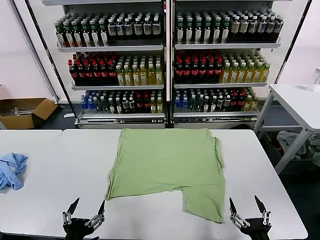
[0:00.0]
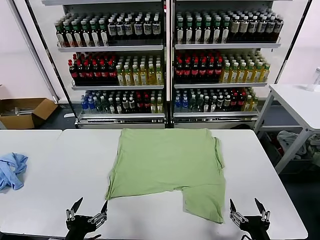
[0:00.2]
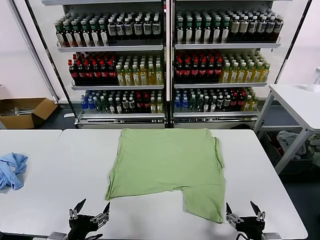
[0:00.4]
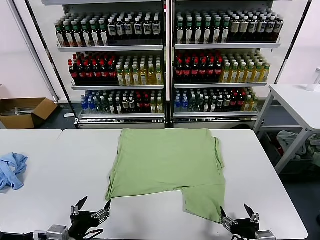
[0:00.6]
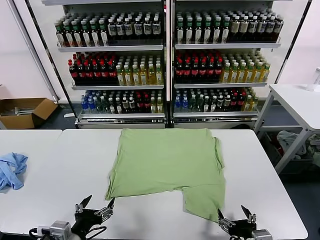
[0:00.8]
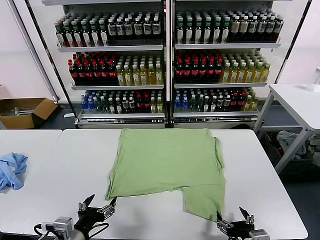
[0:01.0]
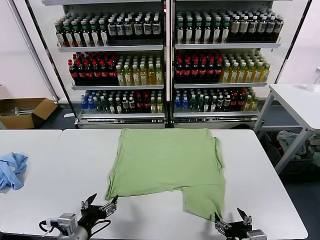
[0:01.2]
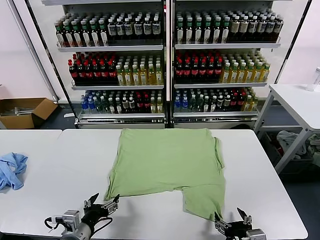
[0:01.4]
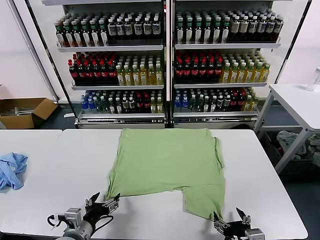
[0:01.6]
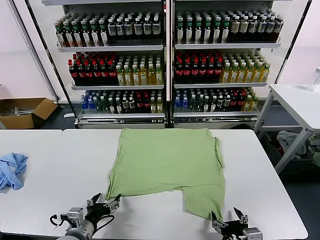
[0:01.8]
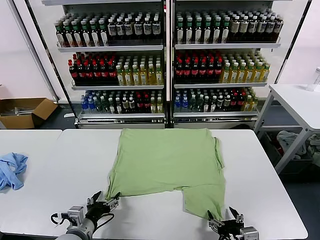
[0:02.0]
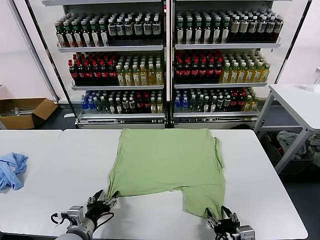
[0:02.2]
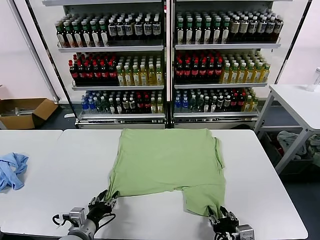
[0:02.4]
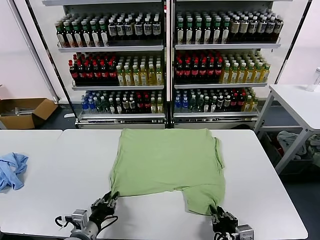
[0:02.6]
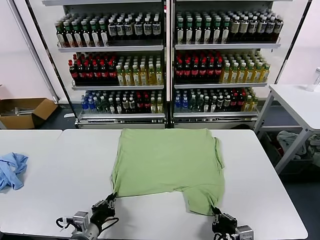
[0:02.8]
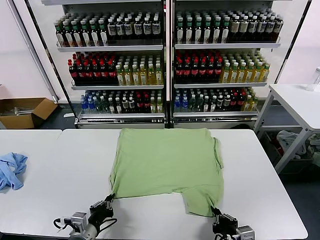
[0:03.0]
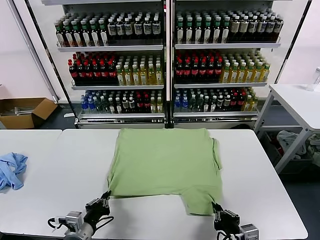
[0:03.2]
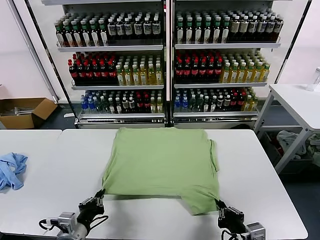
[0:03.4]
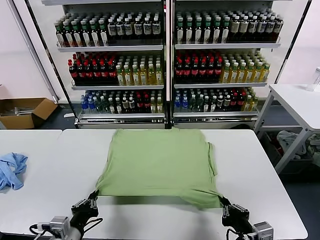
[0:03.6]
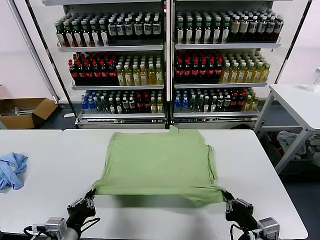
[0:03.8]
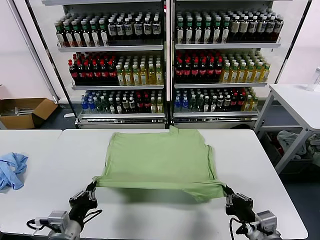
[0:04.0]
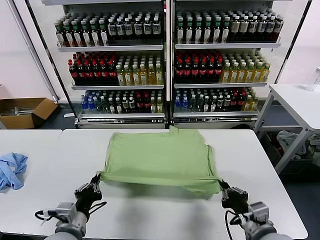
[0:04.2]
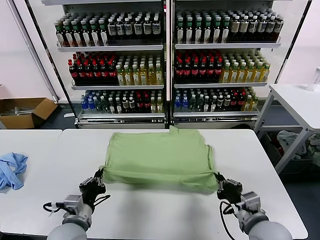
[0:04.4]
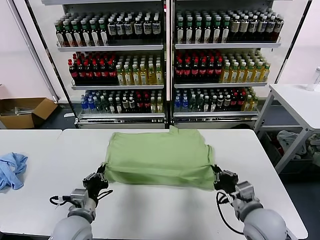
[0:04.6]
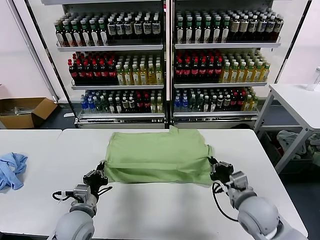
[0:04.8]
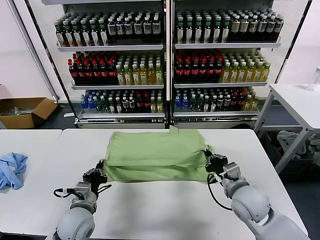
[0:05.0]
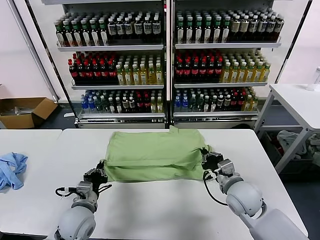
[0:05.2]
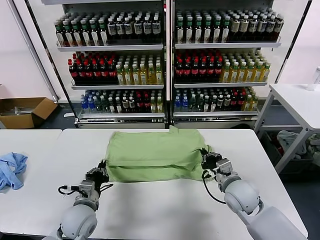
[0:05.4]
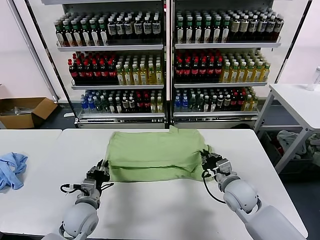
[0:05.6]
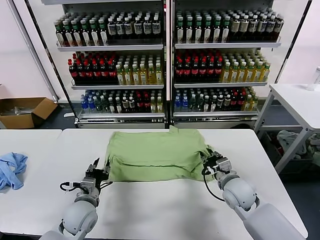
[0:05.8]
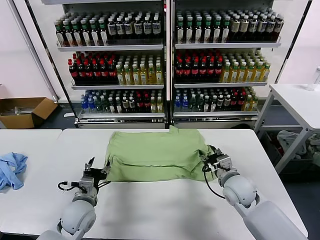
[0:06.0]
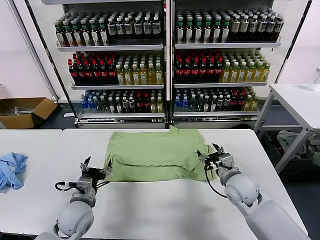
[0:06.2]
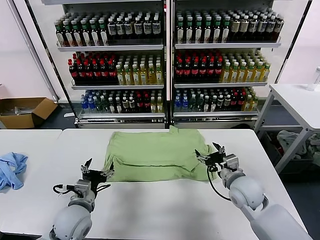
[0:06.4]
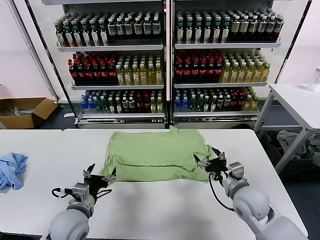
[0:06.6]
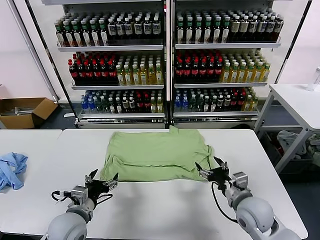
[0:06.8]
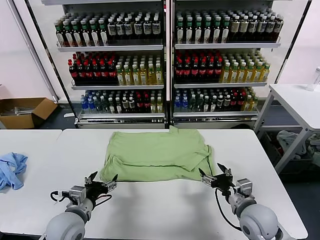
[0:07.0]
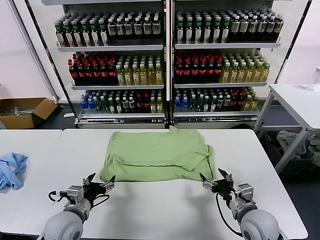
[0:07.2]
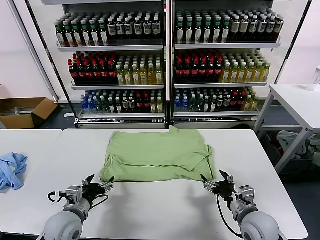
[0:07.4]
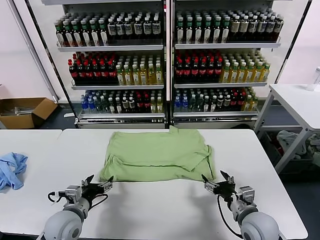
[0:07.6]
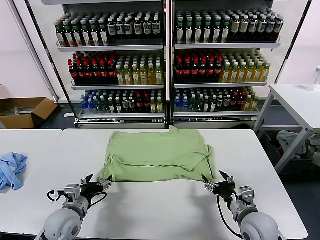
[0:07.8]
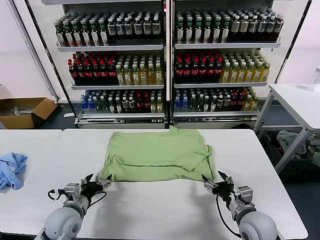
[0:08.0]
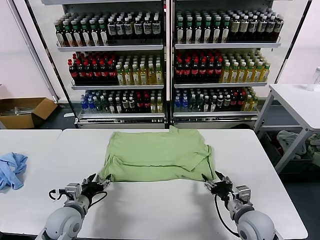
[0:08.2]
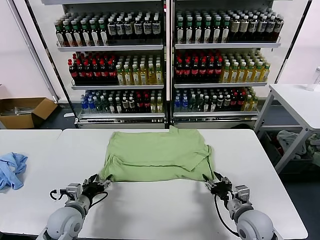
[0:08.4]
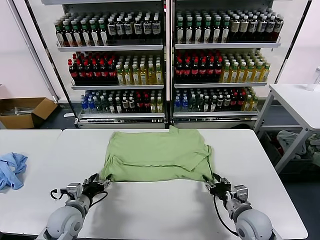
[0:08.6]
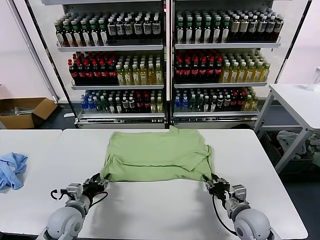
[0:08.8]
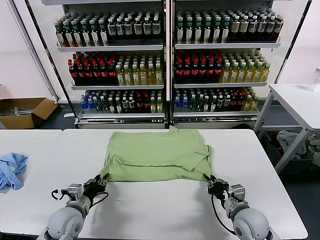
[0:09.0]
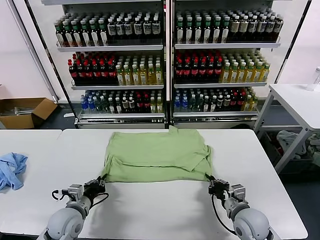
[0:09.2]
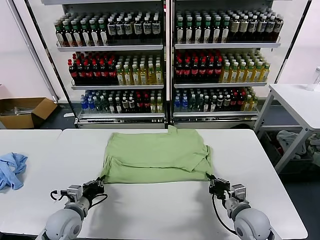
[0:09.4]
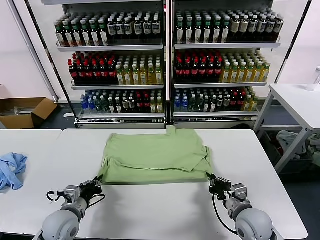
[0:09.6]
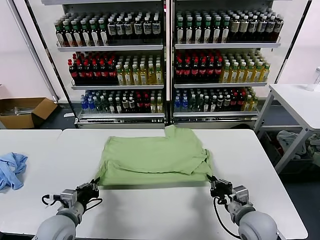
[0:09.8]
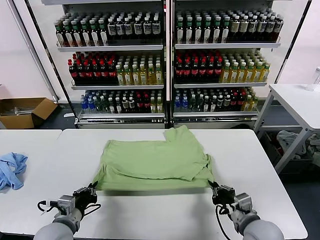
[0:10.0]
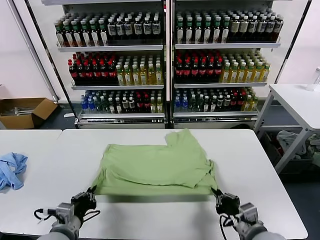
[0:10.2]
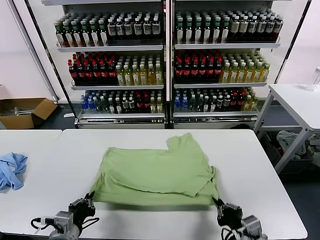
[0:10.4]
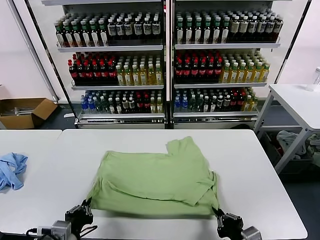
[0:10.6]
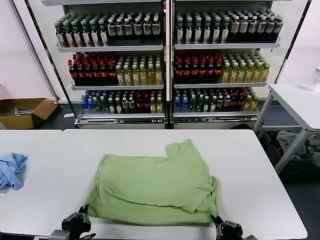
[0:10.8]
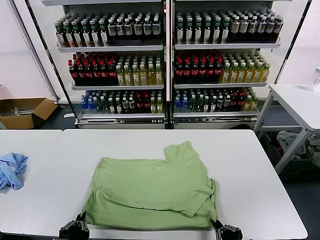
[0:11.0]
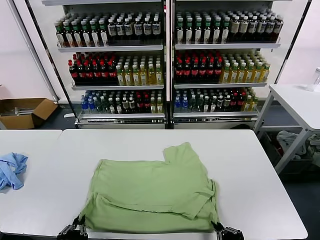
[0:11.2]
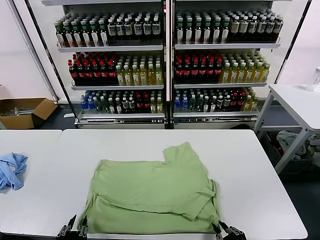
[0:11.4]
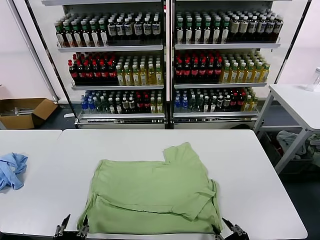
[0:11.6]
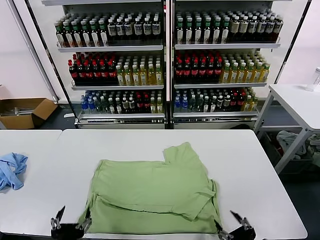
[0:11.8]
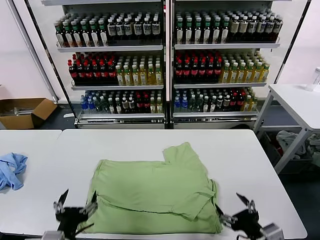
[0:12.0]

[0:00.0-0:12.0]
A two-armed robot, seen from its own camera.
Task of the whole recording: fold and organize the clothes.
Step, 0.0 to 2.8 s: use both grippers simultaneously to clamp the lower edge of the clothing fabric.
Step, 3.0 to 6.0 s: use both grippers to drag the lower edge of the fabric forward and fold it over the upper edge.
Step, 6.2 to 11.4 s: Drag the clothes downward with both gripper.
1.6 to 3.0 s: The right gripper closes, while the left gripper closes.
3.0 to 4.4 s: The left gripper goes roughly 5 cm upward, while the right gripper goes approximately 10 cm forward and upward.
4.4 to 6.0 s: The left gripper shifts roughly 10 cm forward, and opens, while the right gripper moves forward, some 15 cm, and opens up.
6.0 to 7.6 s: The right gripper moves backward, approximately 10 cm.
7.6 to 9.0 s: The right gripper closes, while the left gripper closes up.
9.0 to 10.4 s: The two grippers go about 15 cm backward and upward. The left gripper closes.
10.4 to 12.0 s: The left gripper is displaced backward by about 5 cm, and opens its fingers, while the right gripper ends up approximately 5 cm from where it was, and opens up.

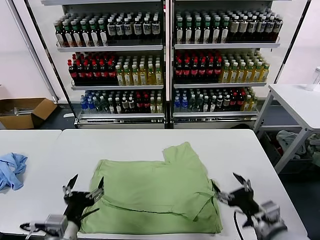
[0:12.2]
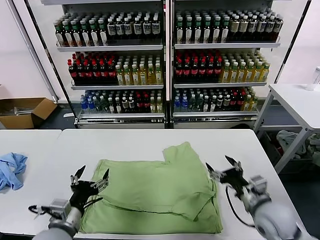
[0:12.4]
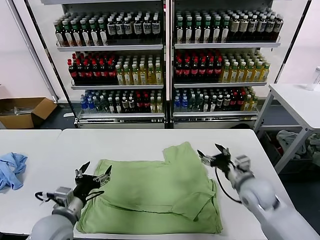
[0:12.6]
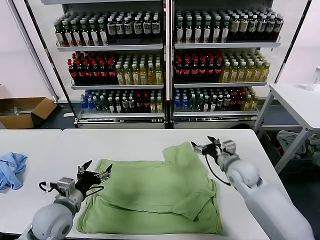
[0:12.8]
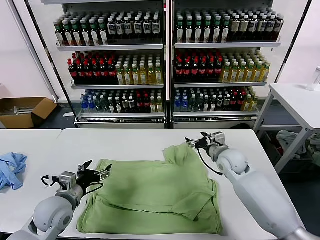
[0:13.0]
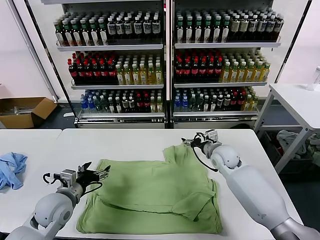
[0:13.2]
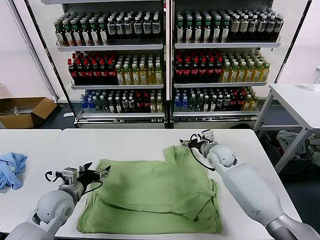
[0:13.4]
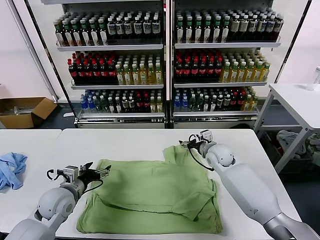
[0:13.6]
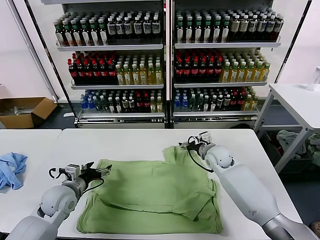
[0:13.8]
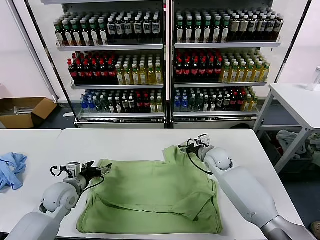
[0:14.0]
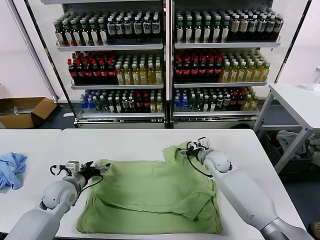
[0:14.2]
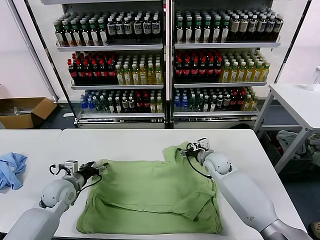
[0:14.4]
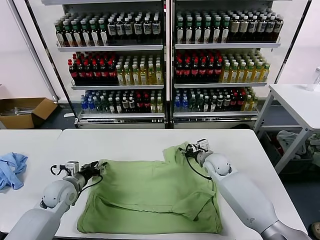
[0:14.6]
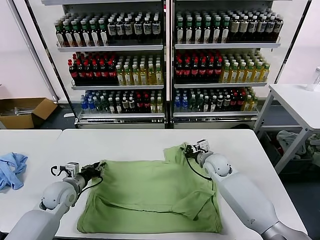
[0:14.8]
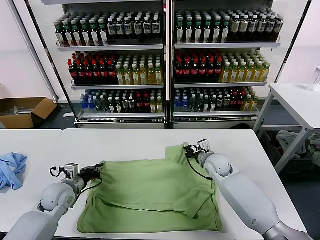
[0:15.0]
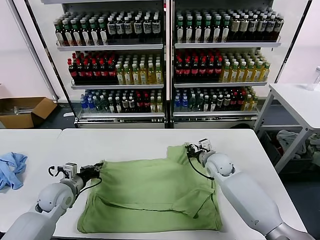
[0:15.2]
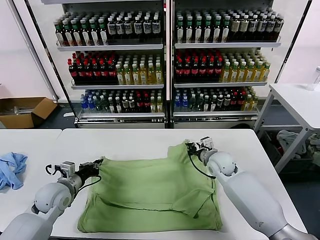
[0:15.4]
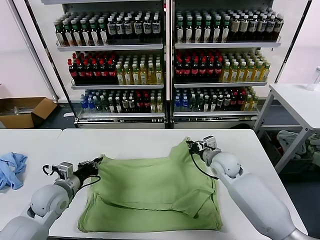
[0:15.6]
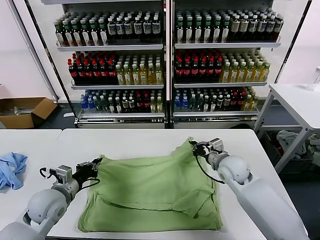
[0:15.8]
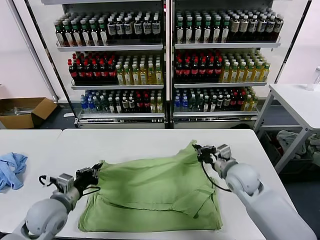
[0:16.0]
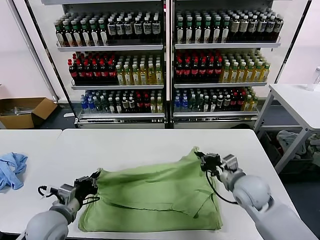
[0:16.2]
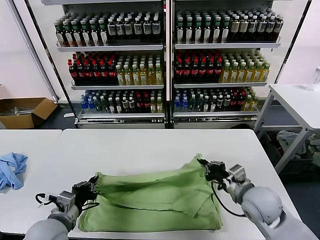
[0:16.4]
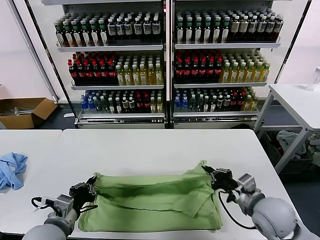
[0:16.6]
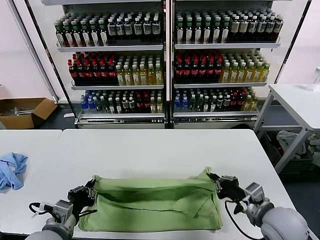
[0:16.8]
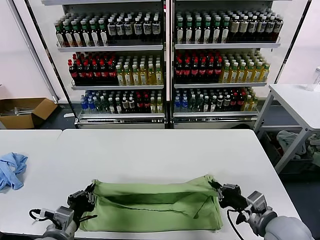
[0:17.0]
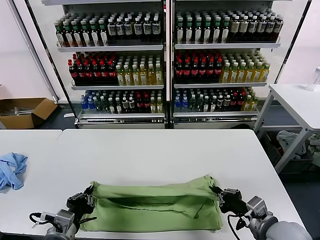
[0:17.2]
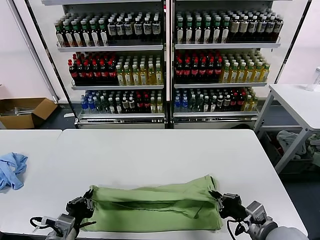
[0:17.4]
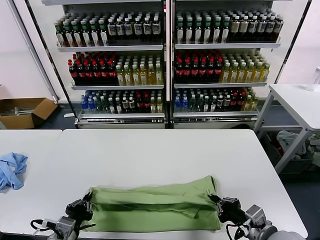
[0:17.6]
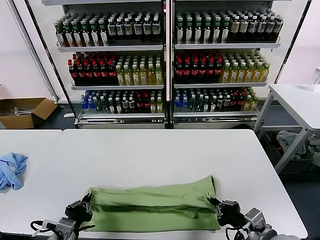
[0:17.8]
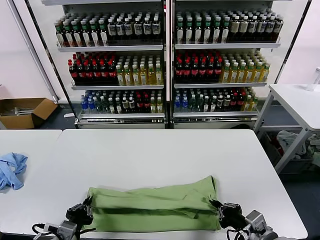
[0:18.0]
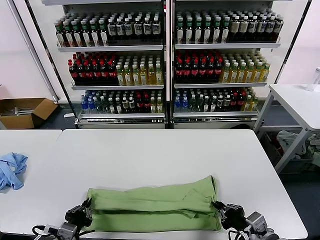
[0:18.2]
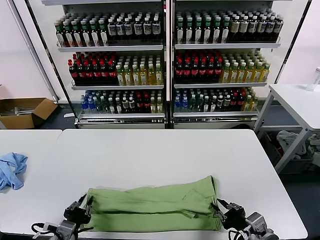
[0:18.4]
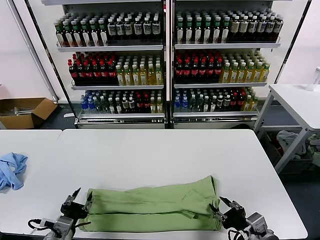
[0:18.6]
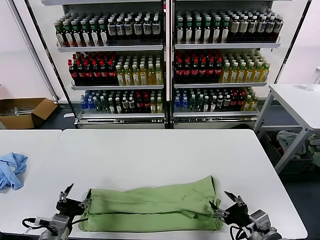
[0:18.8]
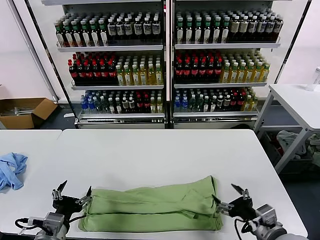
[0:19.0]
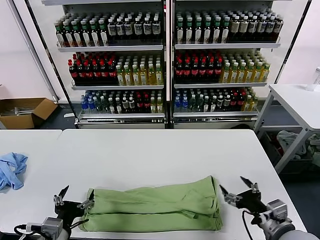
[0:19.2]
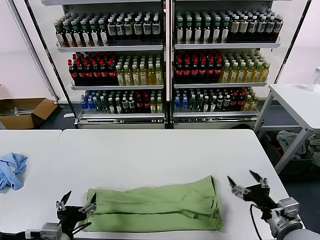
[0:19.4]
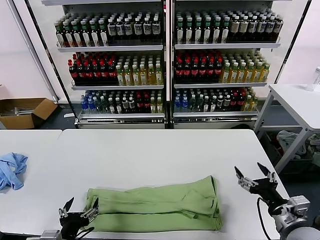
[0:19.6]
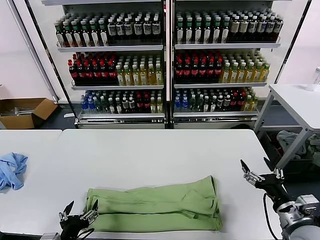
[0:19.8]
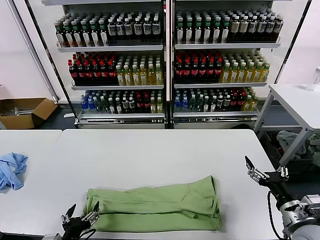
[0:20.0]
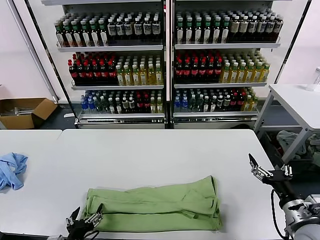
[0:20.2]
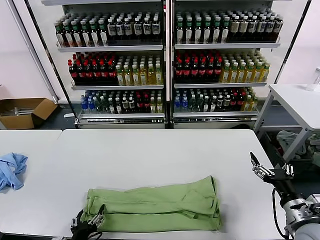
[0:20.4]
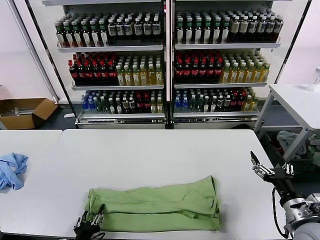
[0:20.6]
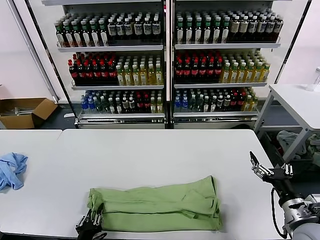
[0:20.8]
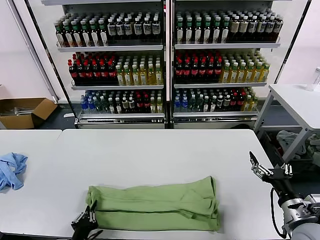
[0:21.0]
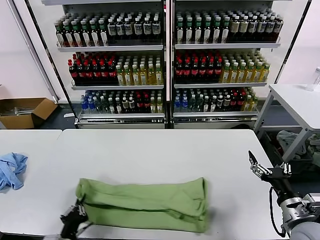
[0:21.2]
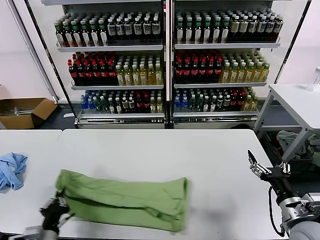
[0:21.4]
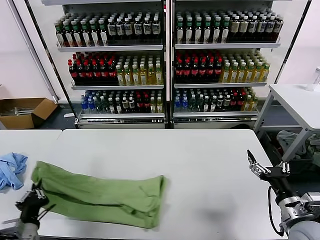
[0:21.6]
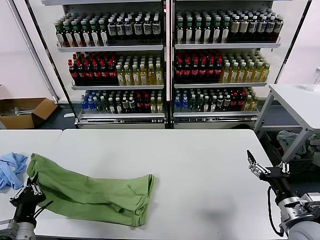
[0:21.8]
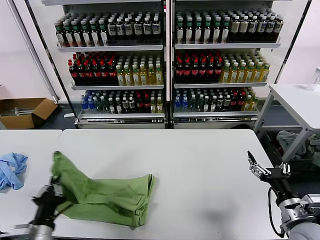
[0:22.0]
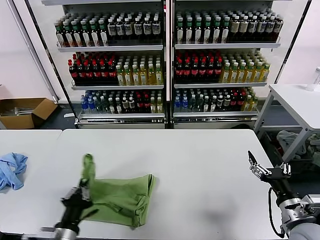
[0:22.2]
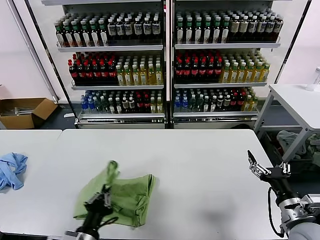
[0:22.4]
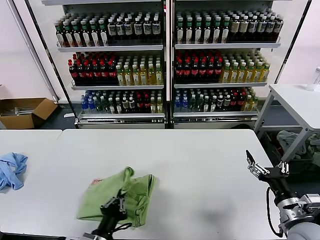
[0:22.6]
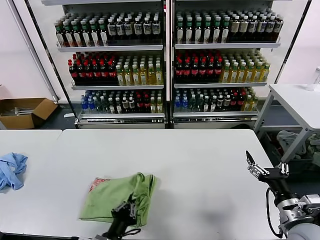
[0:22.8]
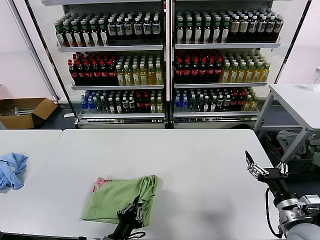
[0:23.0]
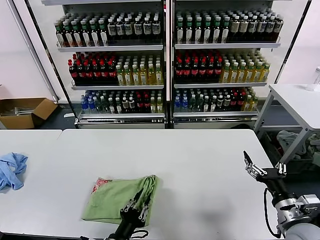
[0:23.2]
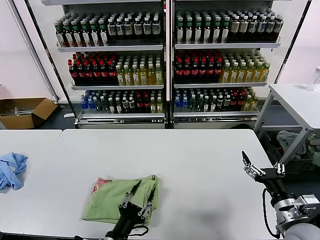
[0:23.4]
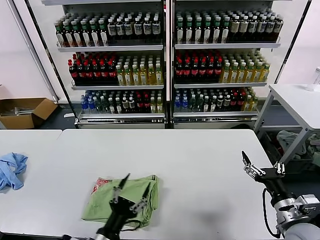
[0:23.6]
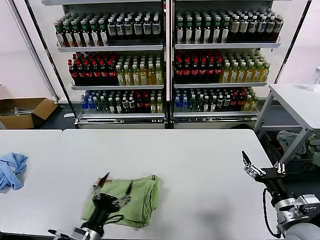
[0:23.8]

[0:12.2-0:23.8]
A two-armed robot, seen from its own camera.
Task of the whole recording: fold and organize the clothes.
Step, 12.2 to 15.0 s: use both grippers simultaneously to clamp the upper edge of the clothing fabric.
Step, 15.2 to 18.6 s: use both grippers to drag the upper edge of the fabric backward and fold it over the lower edge.
Step, 18.8 to 21.0 s: use the left gripper to clamp the left edge of the fabric.
Step, 21.2 to 23.2 s: use the left gripper to drag the left edge of the fabric to the left and folds it over the right edge.
12.2 to 13.6 s: The right gripper shifts approximately 30 cm forward, while the left gripper is displaced forward and to the left by roughly 20 cm.
13.6 to 15.0 s: The left gripper ends up roughly 5 cm from where it was, and closes up; the right gripper closes its fingers.
15.0 to 16.6 s: The left gripper heads backward and upward, covering roughly 15 cm, while the right gripper moves backward, some 20 cm.
16.6 to 18.0 s: Both grippers travel together backward, about 5 cm.
18.0 to 19.4 s: The right gripper opens; the left gripper opens up.
19.4 to 21.0 s: The left gripper shifts some 10 cm downward, and closes.
21.0 to 22.4 s: The left gripper travels upward by roughly 10 cm, and reaches roughly 10 cm to the left, then returns.
22.4 to 23.8 s: The left gripper opens up.
